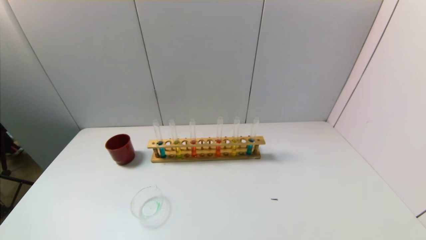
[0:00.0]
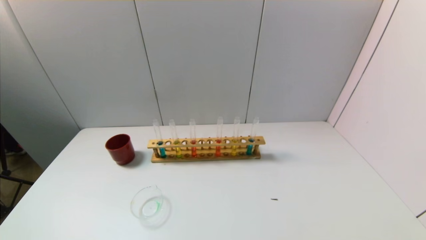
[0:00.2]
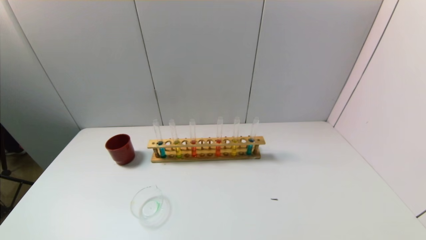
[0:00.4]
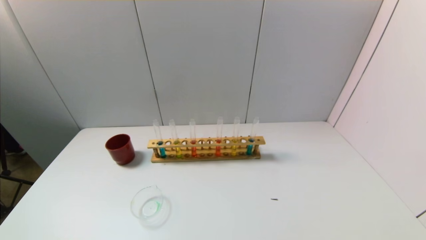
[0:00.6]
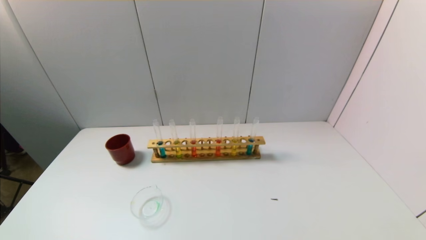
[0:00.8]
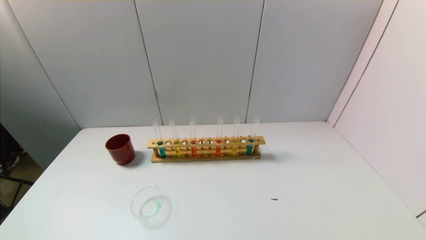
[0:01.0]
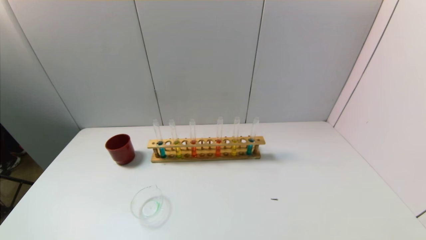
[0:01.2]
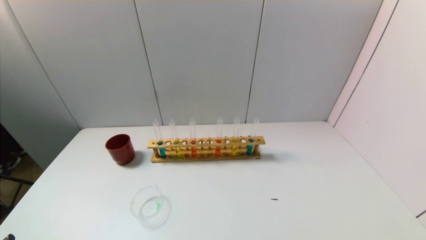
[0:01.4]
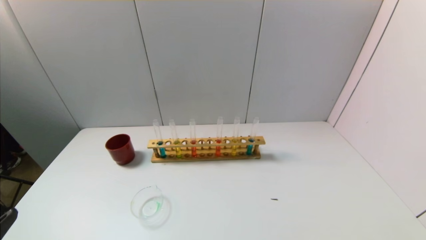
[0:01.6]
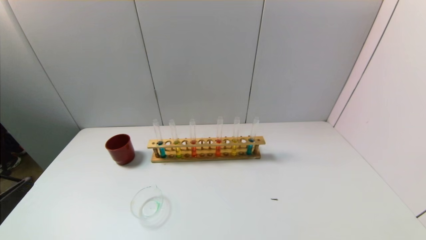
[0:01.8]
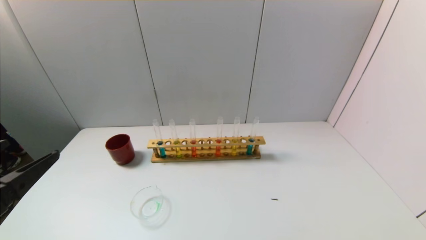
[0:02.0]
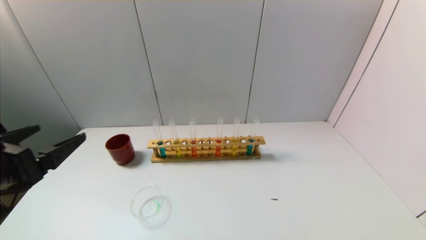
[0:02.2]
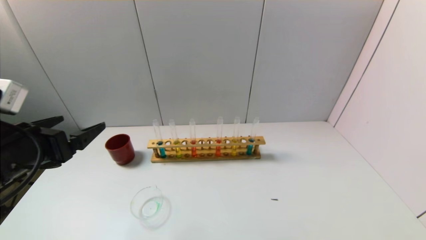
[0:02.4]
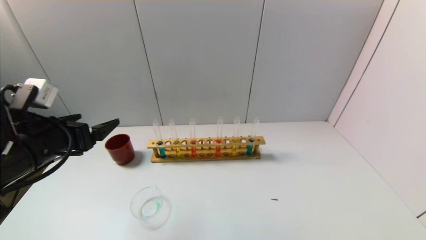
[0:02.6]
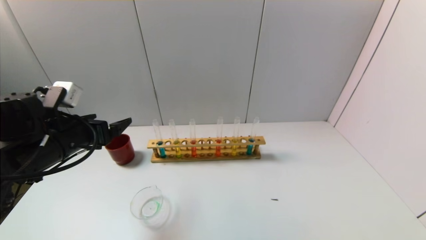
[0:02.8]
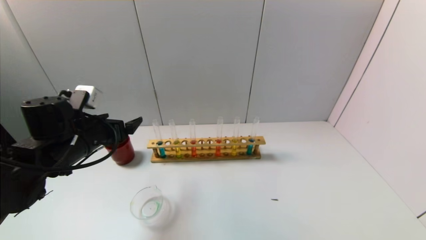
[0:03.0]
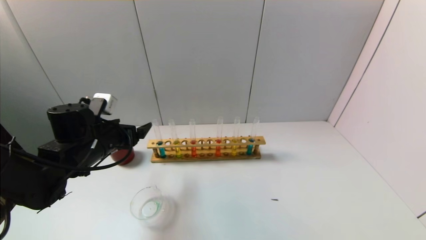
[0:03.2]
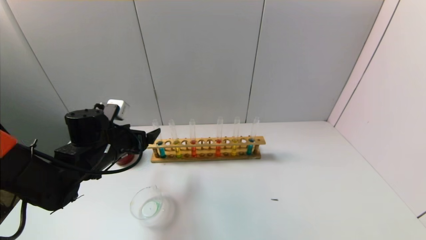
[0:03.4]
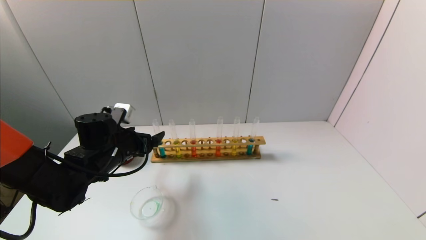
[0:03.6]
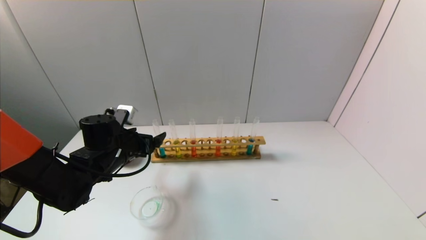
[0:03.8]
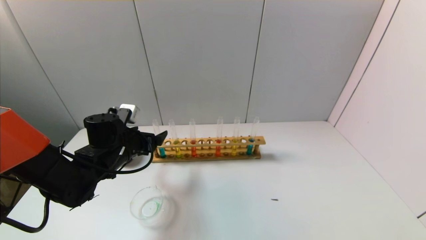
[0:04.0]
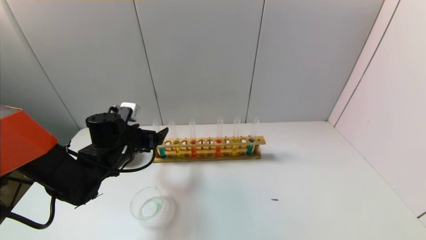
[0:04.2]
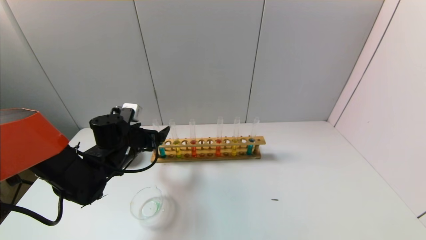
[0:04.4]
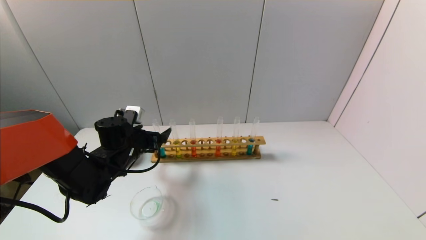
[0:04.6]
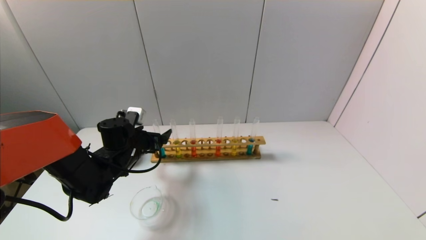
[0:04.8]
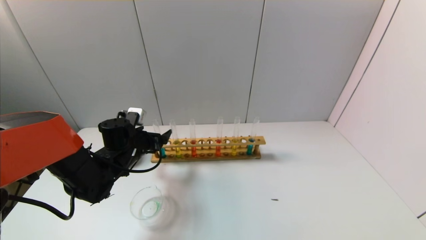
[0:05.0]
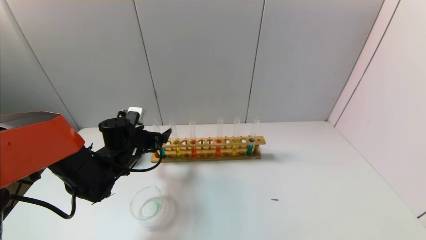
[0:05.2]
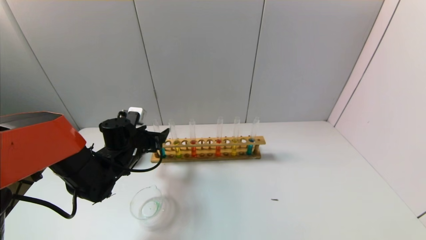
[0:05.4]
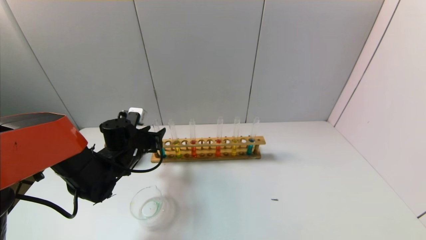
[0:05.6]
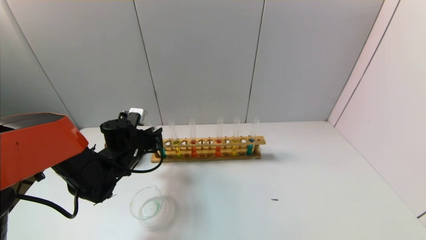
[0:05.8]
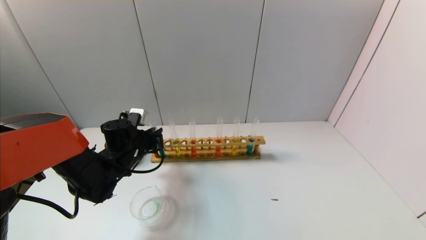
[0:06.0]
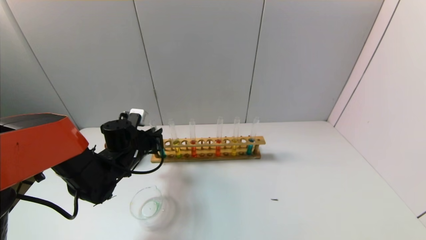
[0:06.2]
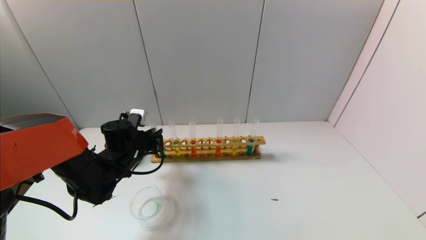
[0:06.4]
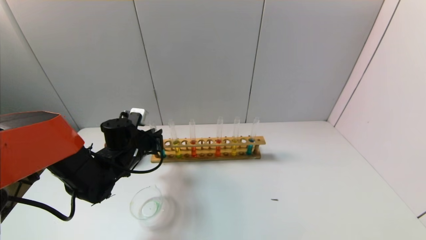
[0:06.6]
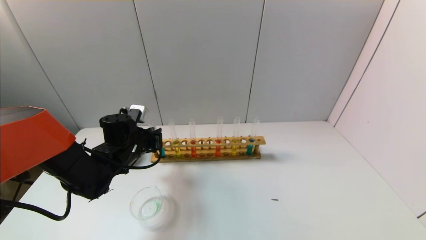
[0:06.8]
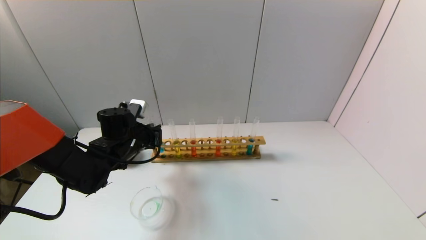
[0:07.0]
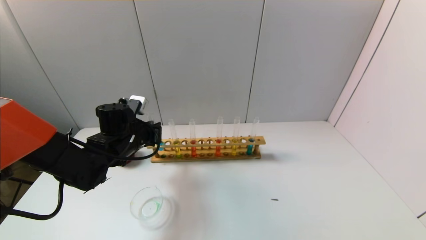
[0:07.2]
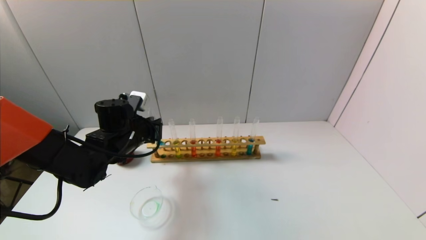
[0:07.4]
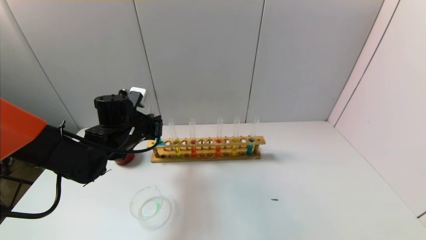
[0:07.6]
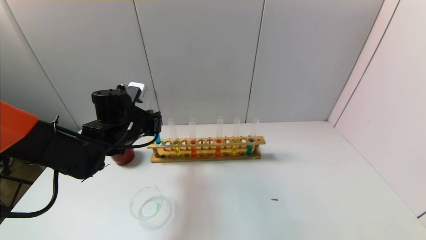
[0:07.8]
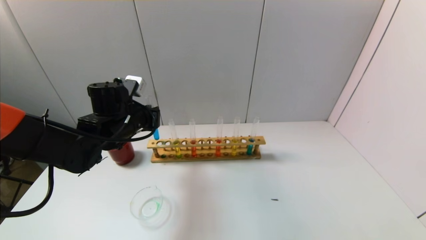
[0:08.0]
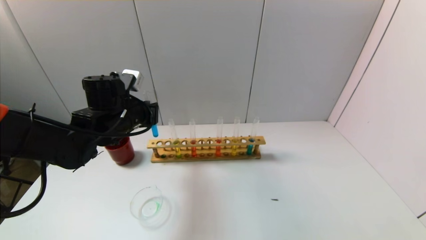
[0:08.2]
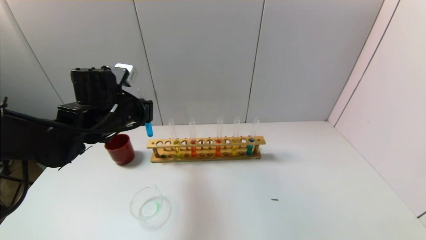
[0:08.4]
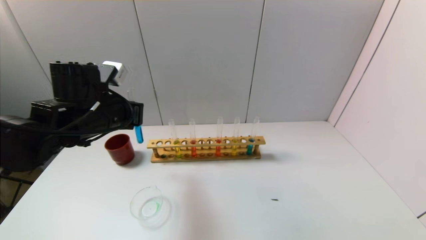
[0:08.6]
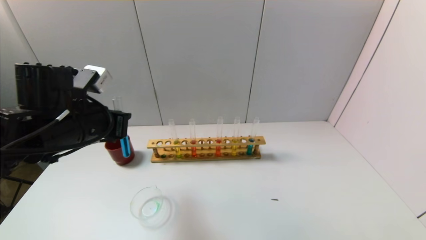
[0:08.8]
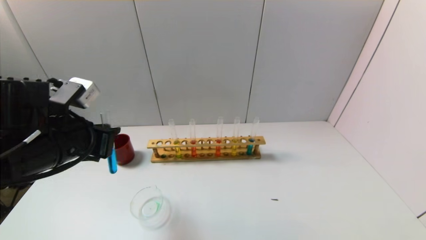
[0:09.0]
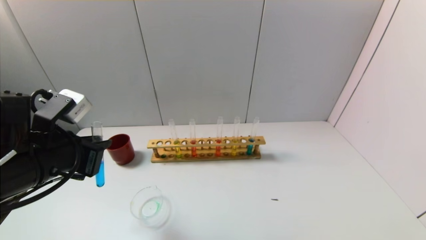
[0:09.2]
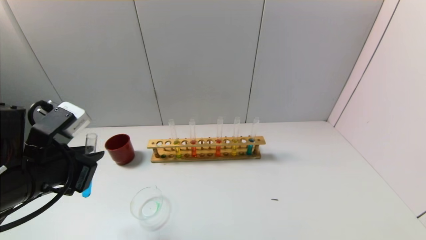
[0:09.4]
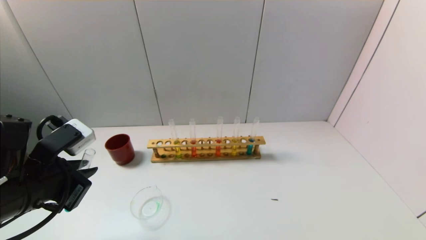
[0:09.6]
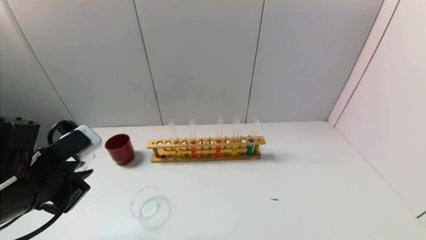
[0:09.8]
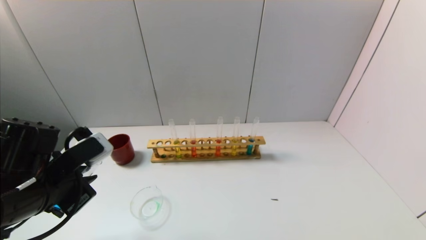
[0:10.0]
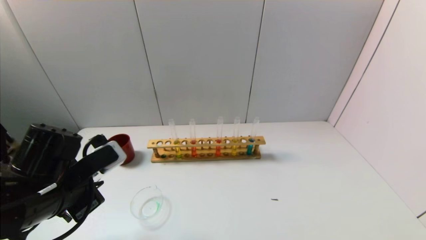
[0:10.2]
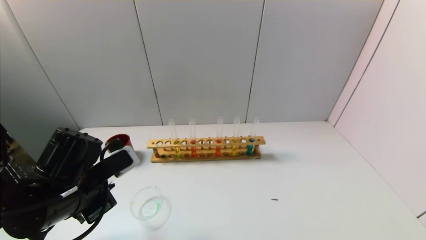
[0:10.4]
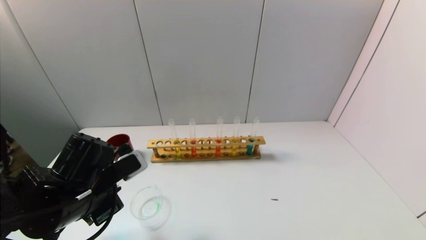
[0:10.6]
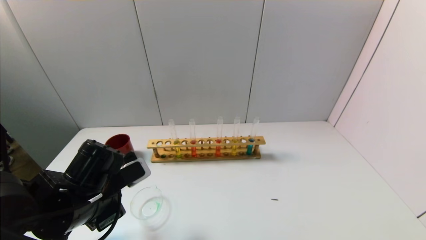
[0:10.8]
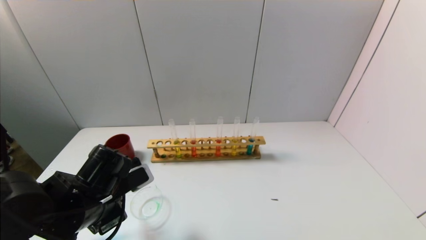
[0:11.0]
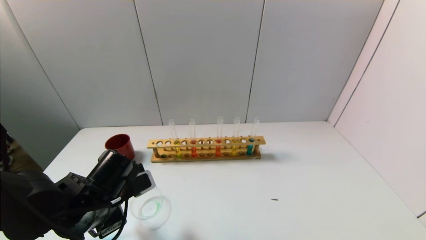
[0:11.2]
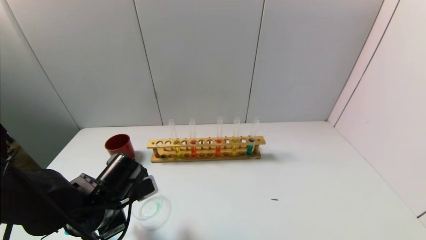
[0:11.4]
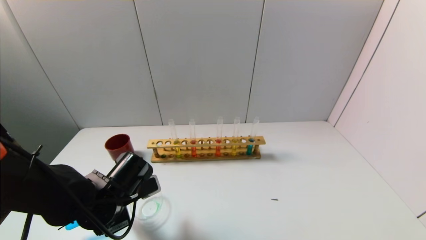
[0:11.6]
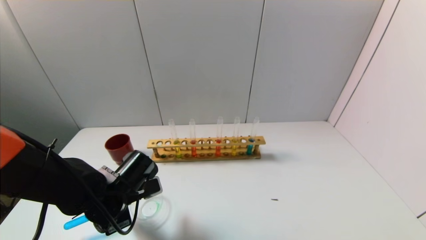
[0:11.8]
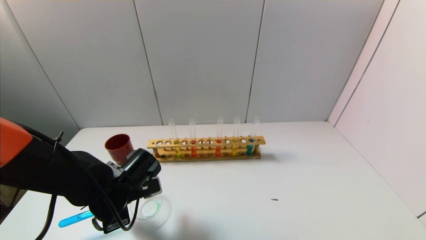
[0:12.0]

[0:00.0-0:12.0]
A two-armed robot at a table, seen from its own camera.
Task of the whole recording: pick up the test tube with yellow pigment and the test tube with blue pigment by grippers and pour them into the beaker.
Step, 0:00.0 to 0:06.4: Grasp the blue reagent with the left gripper.
0:01.6 to 0:03.0: The left gripper travels forward by approximately 25 cm.
0:03.0 to 0:04.4: The left gripper heads downward and forward, covering roughly 10 cm.
0:04.4 to 0:06.0: The left gripper closes.
0:06.0 to 0:07.6: The left gripper moves upward, approximately 5 cm.
0:07.6 to 0:09.0: The left gripper moves backward and upward, roughly 15 cm.
0:09.0 to 0:10.4: The left gripper goes roughly 5 cm downward.
0:10.4 to 0:12.0: The left gripper moves downward, about 10 cm.

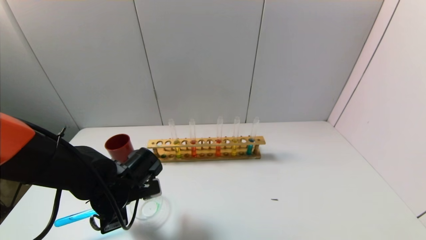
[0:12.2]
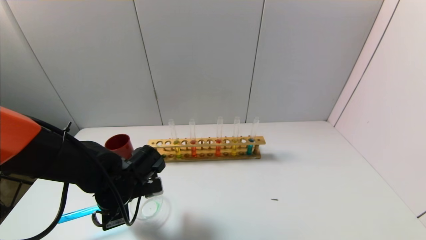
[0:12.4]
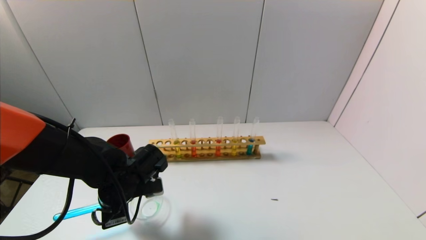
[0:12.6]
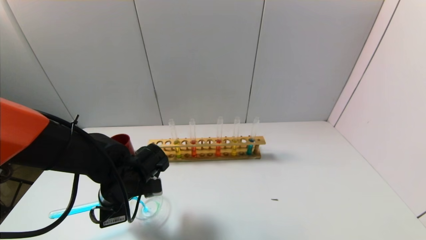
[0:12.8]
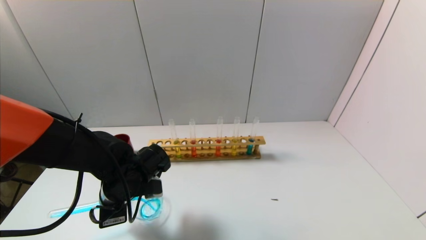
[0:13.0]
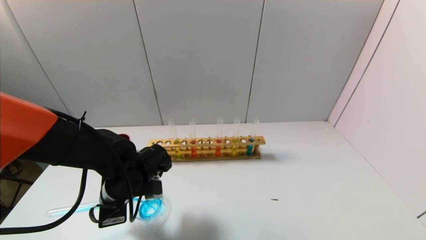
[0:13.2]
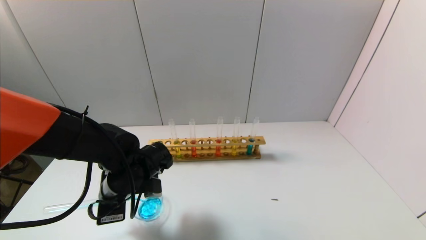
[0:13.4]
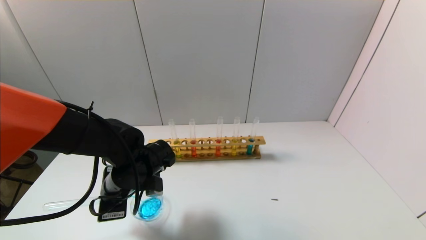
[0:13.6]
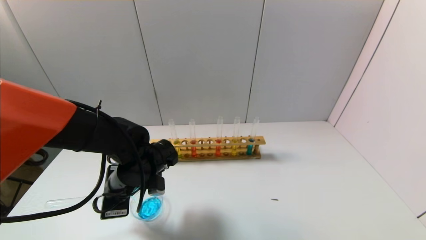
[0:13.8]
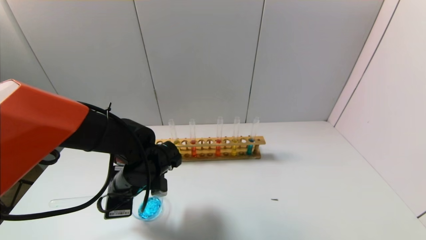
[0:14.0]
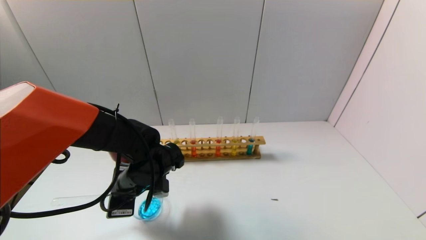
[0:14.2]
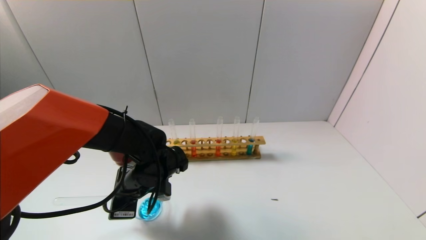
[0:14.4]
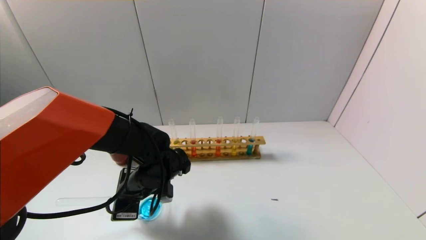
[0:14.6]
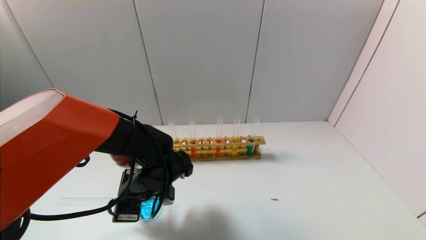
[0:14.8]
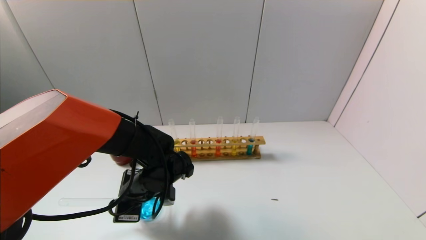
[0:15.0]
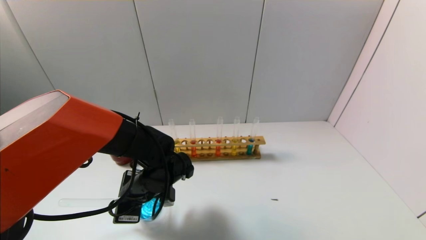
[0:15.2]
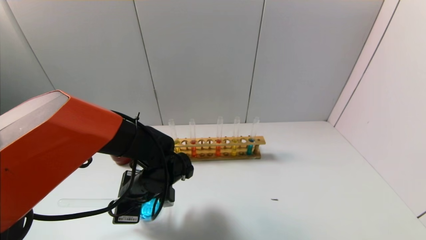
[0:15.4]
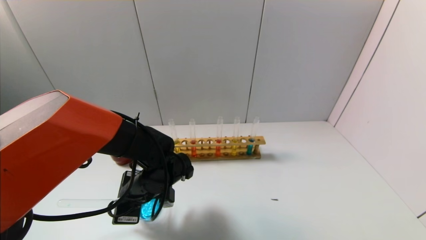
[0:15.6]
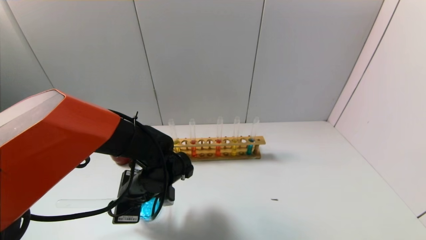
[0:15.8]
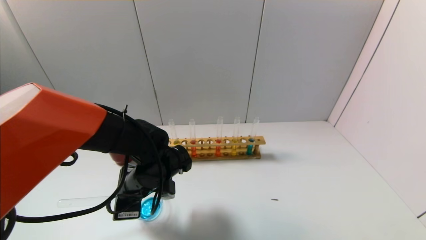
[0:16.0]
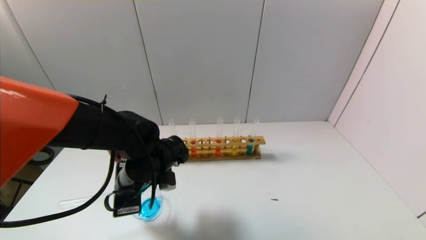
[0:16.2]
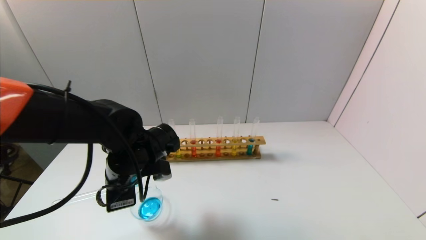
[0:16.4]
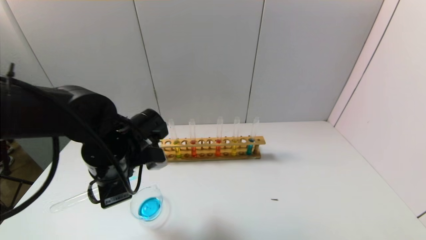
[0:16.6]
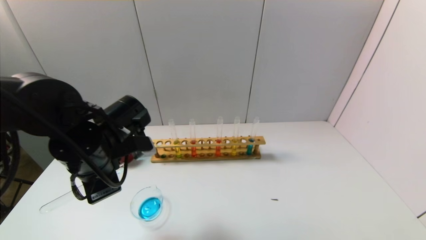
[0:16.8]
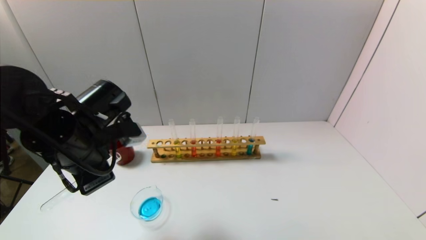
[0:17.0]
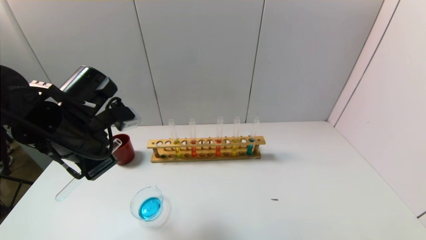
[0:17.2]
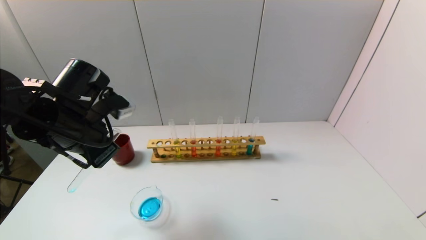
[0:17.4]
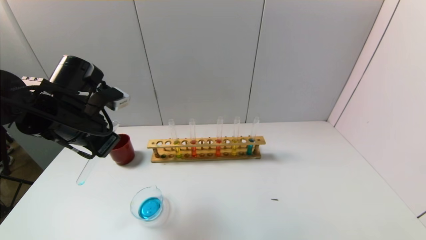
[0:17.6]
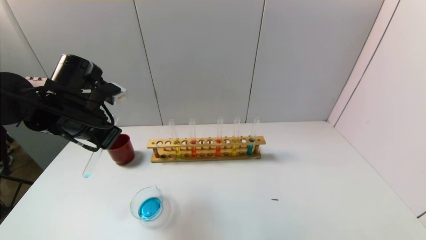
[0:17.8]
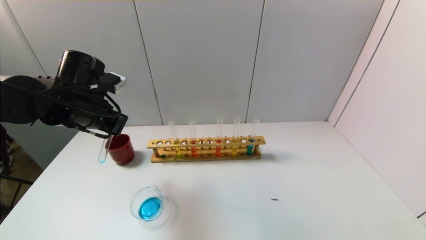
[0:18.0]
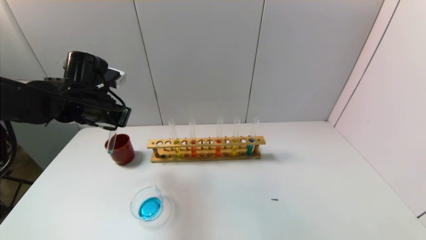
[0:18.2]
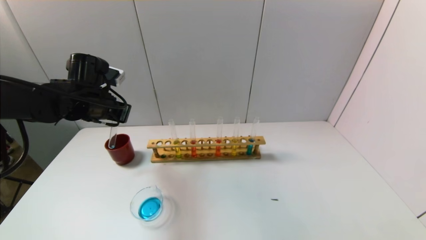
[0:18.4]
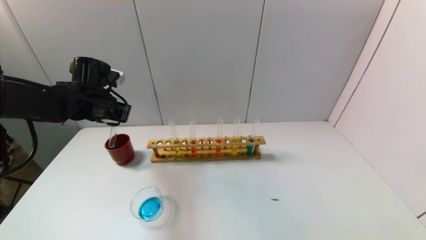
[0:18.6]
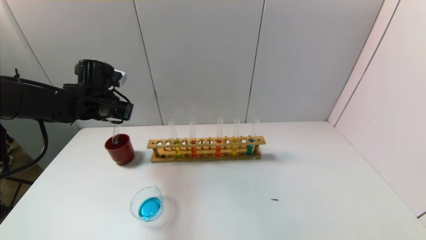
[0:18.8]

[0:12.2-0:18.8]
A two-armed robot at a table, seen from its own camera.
Task of the whole recording: pick up the test tube with yellow pigment and the test tube with blue pigment by grippers and pour them into the beaker.
Step, 0:12.2 to 0:14.6: Pour the blue reagent into the graduated cylinder with the left gripper.
0:12.2 to 0:13.8: The grippers move only a little.
0:13.8 to 0:15.4: There are only small adjustments of the grippers.
0:15.4 to 0:17.2: The left gripper travels upward and to the left by roughly 15 cm.
0:17.2 to 0:18.8: The left gripper goes about 15 cm forward.
